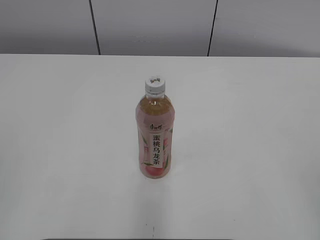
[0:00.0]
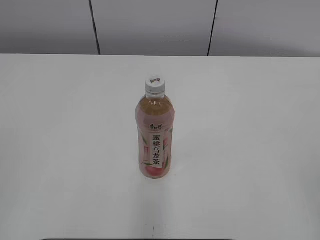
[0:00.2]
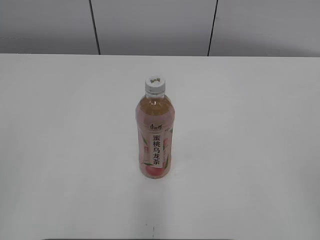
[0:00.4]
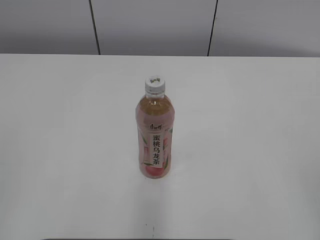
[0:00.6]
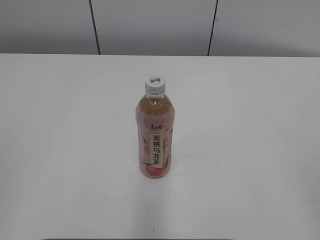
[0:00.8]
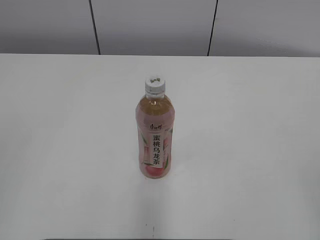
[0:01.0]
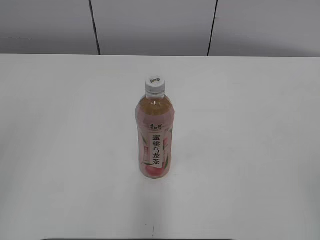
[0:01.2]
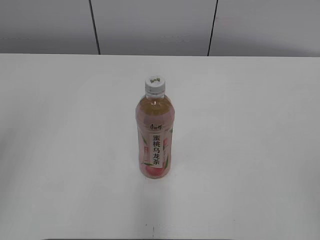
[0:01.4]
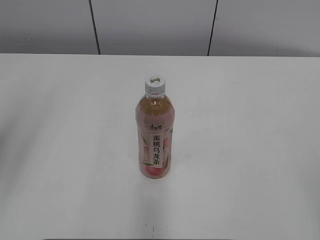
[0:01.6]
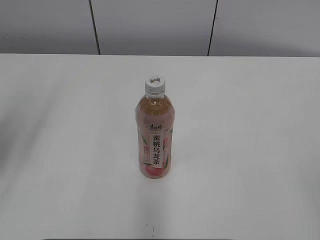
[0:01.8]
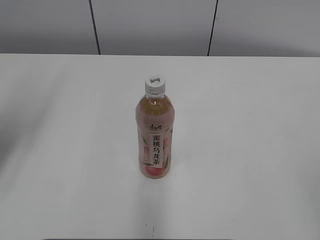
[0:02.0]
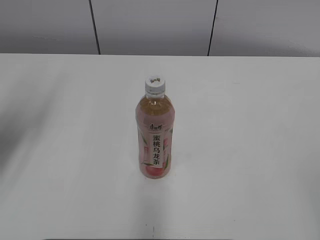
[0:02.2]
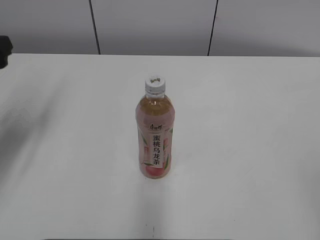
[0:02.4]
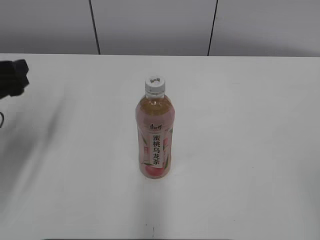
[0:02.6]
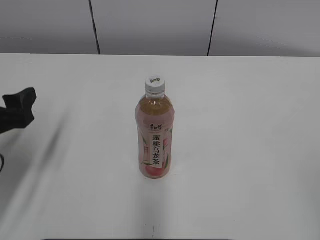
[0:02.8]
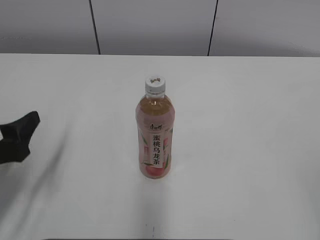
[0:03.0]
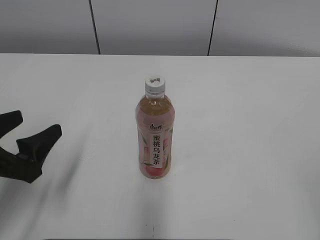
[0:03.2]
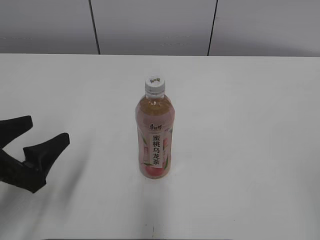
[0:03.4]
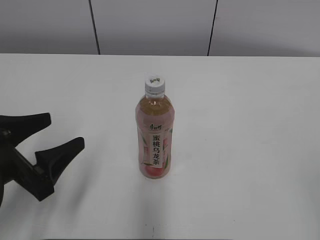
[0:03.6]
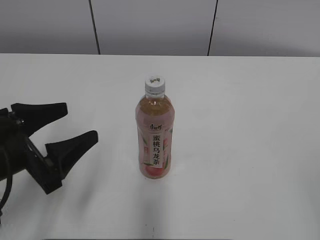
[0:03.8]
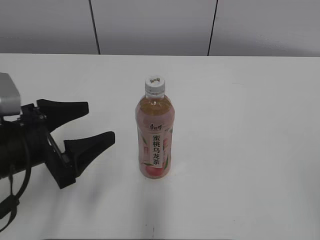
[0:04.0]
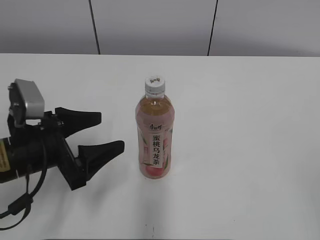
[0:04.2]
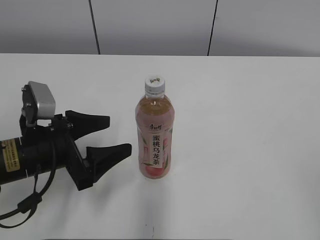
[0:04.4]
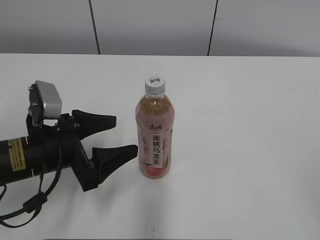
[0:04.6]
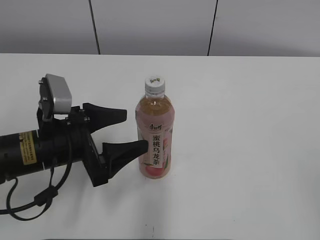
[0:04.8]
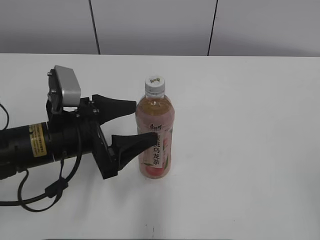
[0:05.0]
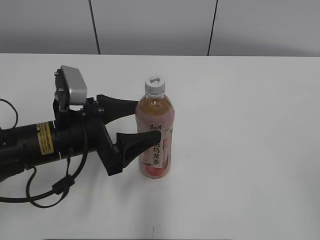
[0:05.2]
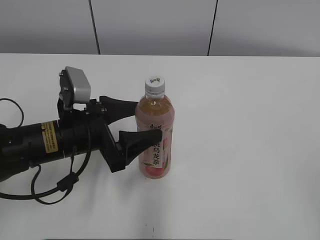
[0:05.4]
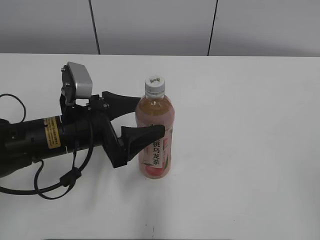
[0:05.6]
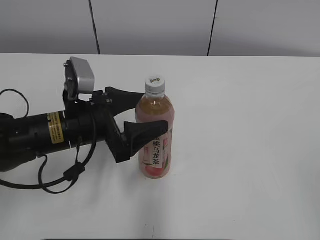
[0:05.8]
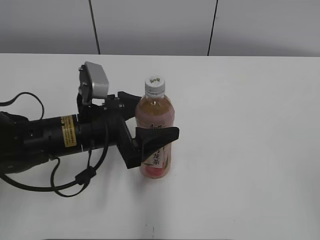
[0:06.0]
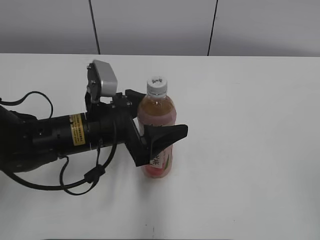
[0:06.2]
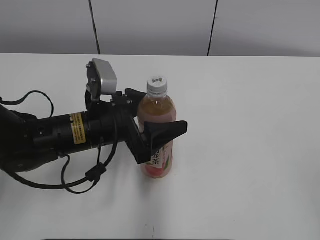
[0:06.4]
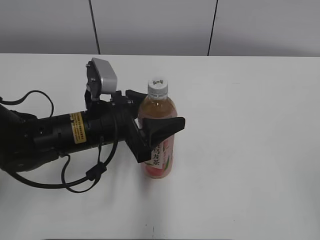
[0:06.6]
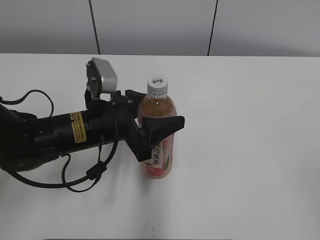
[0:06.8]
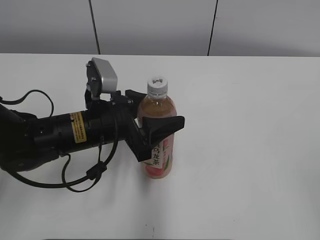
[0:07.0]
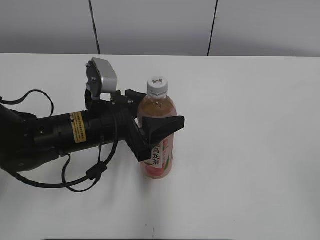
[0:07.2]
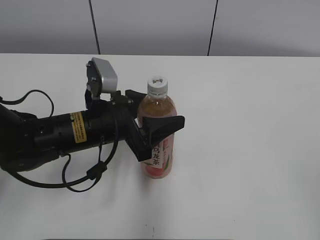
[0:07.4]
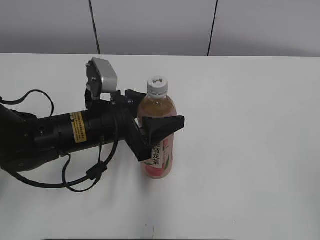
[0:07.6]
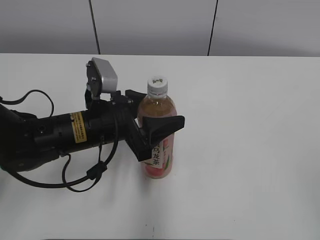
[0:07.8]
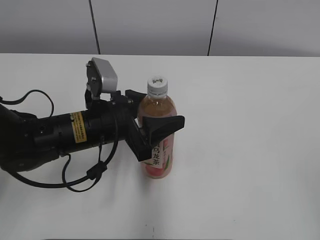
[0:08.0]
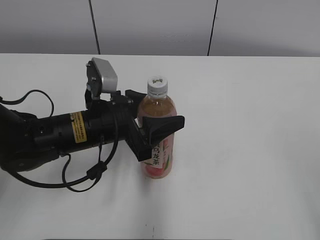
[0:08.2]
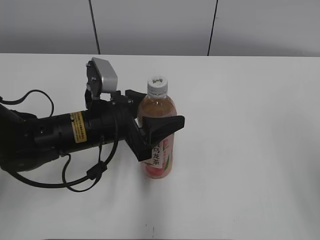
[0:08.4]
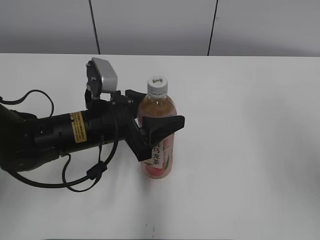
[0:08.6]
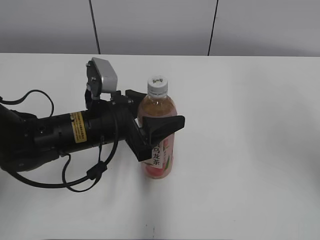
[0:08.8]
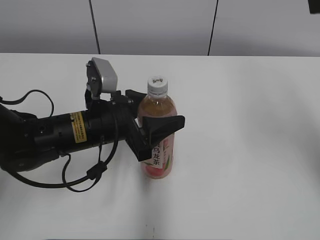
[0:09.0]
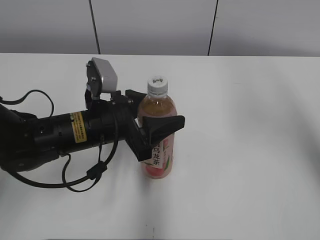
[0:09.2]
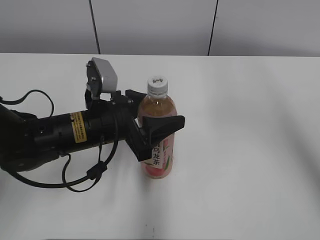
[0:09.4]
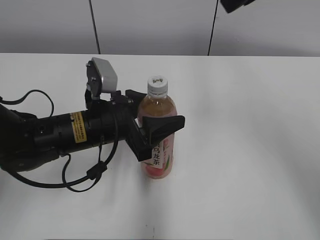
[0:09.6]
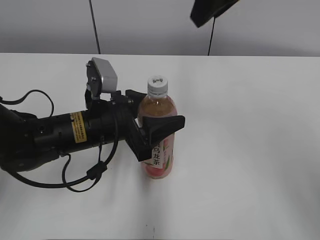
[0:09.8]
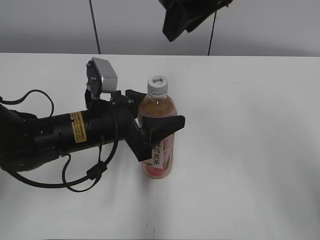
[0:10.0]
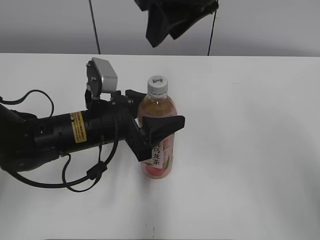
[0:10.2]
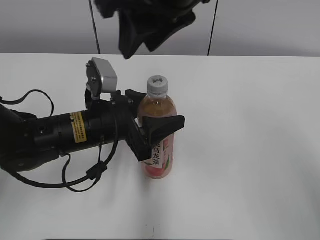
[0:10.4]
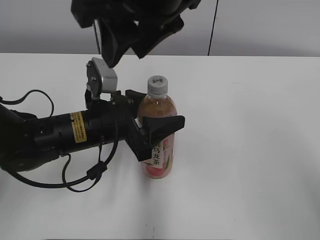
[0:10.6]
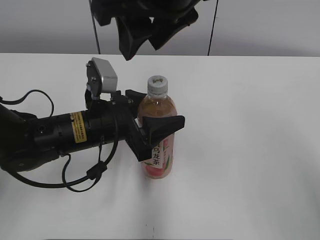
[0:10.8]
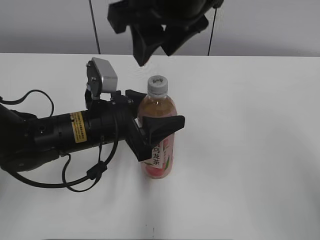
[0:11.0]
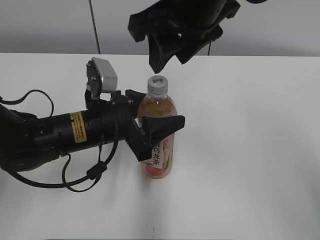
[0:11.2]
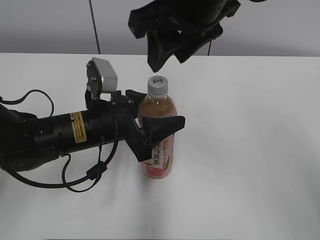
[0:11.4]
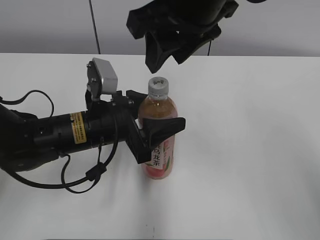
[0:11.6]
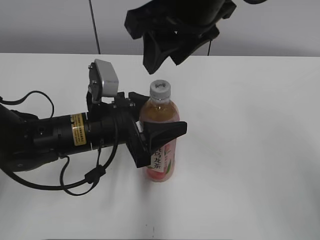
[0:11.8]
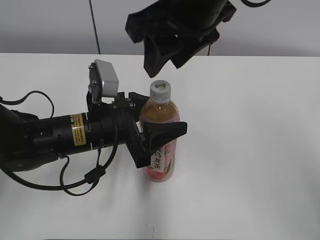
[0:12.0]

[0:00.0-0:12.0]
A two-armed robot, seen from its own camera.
Step, 0:00.0 to 0:06.4: Grab the Peach Oolong Tea with the left hand.
0:01.6 to 0:03.0: The left gripper is displaced downward by about 20 cm, and opens.
0:03.0 to 0:04.4: The left gripper moves to the right, approximately 10 cm.
0:04.4 to 0:06.0: The left gripper shifts roughly 5 cm to the right.
0:06.0 to 0:07.6: The left gripper closes.
0:07.6 to 0:09.0: The right gripper travels forward and upward by about 30 cm, and closes up.
0:09.0 to 0:10.4: The right gripper moves to the left, some 25 cm.
0:10.4 to 0:12.0: The grippers move only a little.

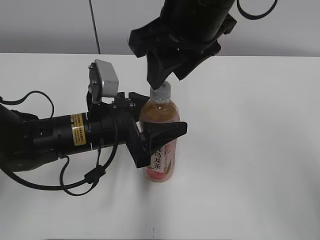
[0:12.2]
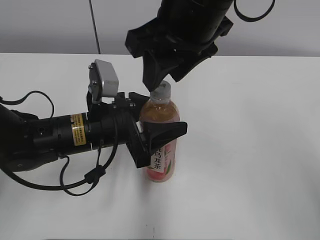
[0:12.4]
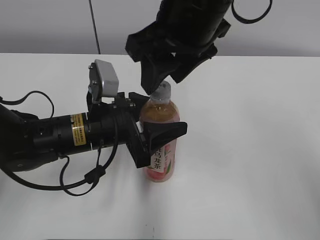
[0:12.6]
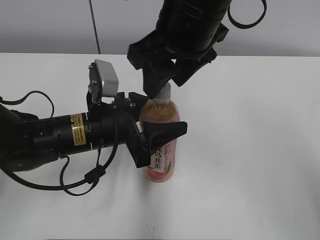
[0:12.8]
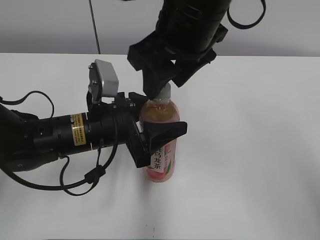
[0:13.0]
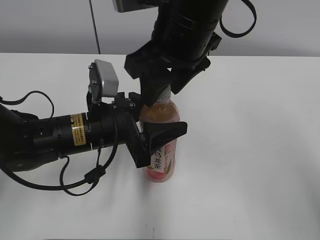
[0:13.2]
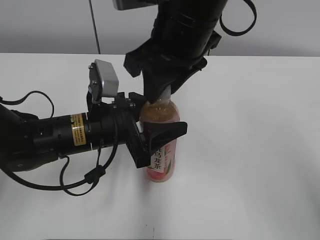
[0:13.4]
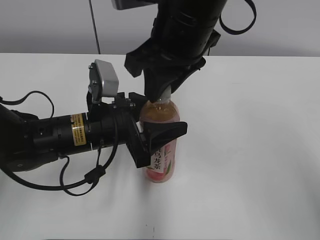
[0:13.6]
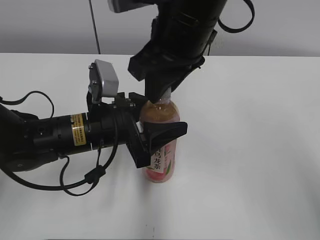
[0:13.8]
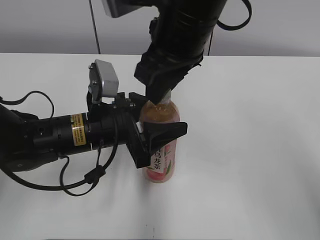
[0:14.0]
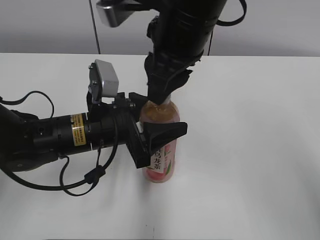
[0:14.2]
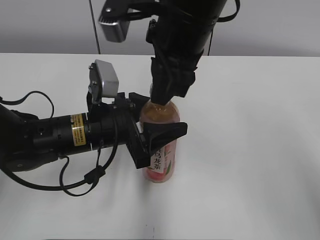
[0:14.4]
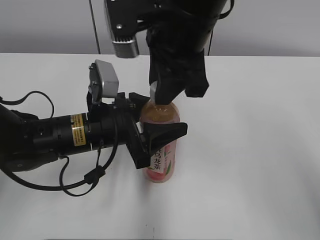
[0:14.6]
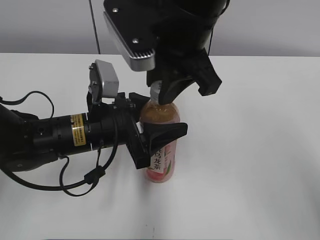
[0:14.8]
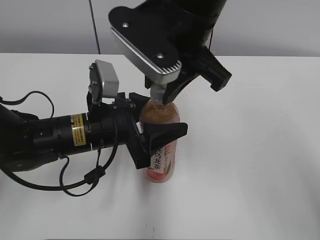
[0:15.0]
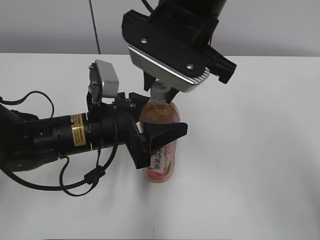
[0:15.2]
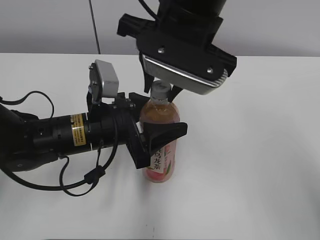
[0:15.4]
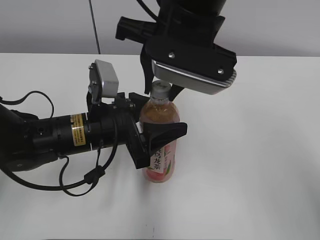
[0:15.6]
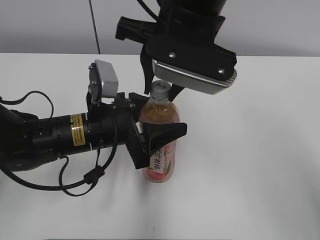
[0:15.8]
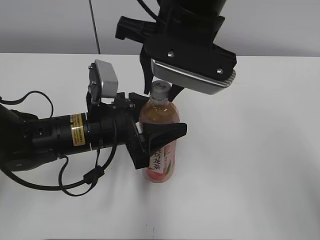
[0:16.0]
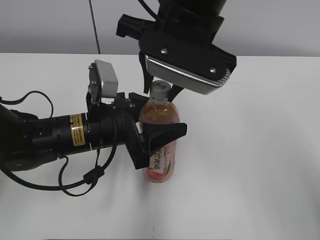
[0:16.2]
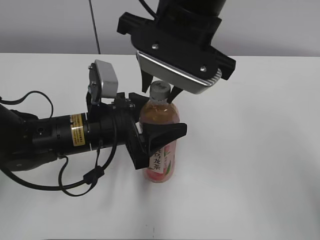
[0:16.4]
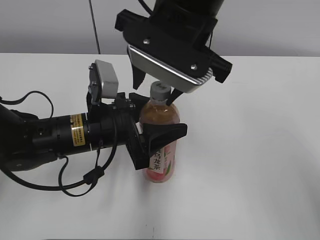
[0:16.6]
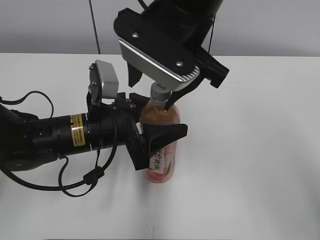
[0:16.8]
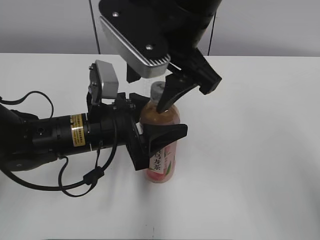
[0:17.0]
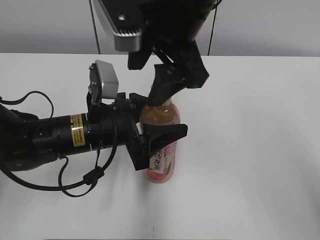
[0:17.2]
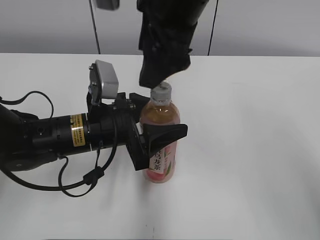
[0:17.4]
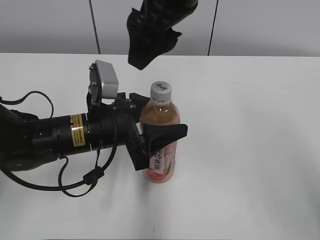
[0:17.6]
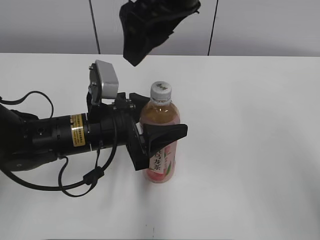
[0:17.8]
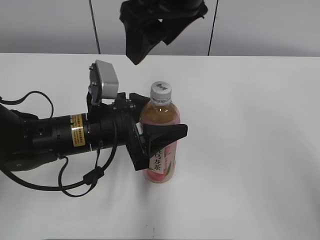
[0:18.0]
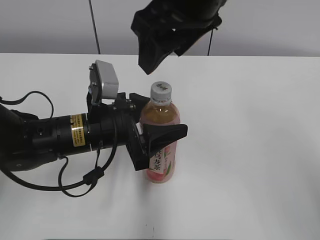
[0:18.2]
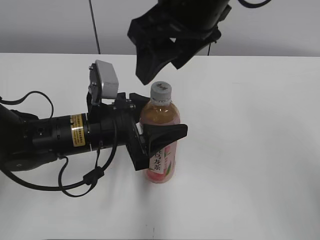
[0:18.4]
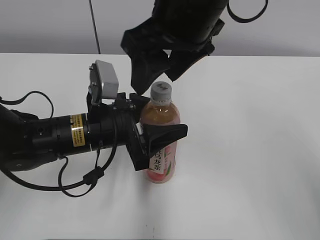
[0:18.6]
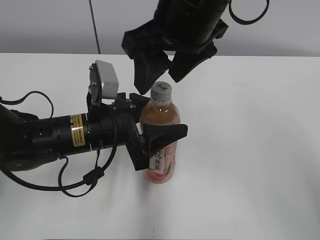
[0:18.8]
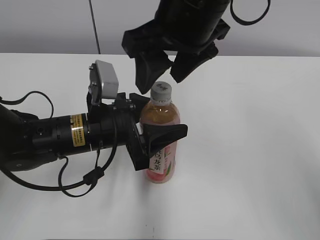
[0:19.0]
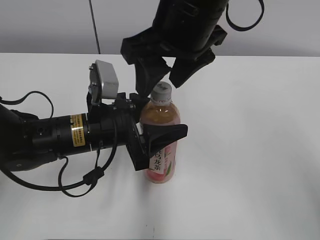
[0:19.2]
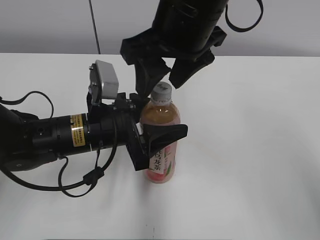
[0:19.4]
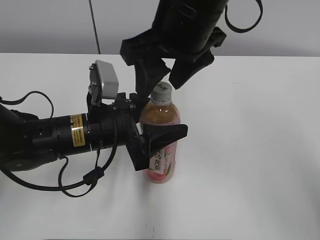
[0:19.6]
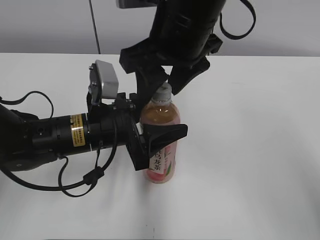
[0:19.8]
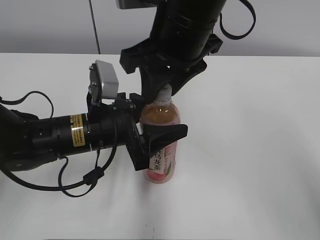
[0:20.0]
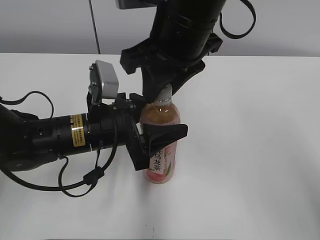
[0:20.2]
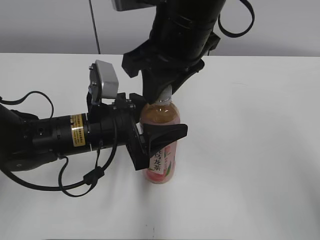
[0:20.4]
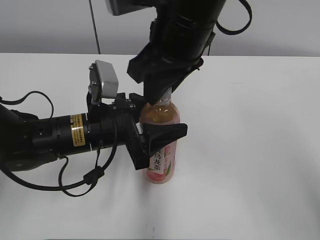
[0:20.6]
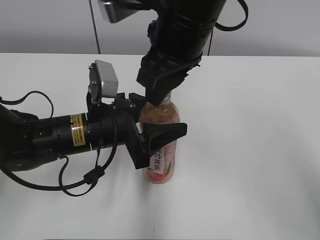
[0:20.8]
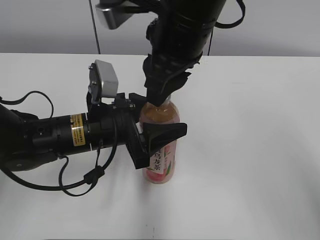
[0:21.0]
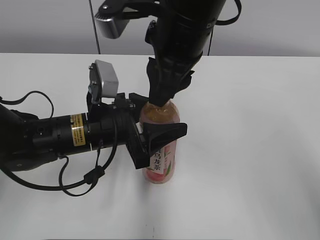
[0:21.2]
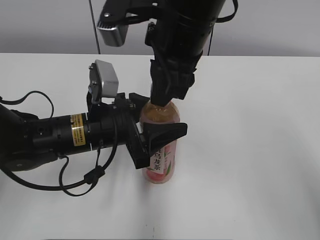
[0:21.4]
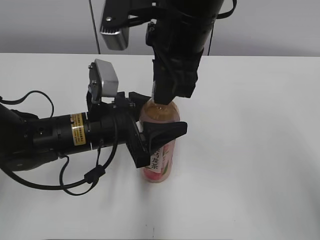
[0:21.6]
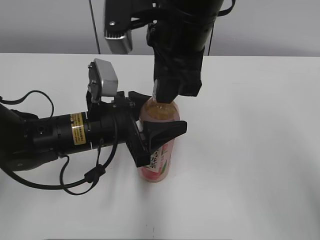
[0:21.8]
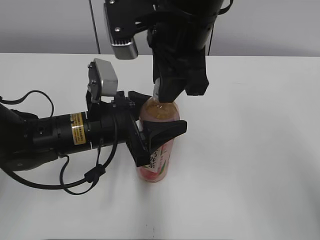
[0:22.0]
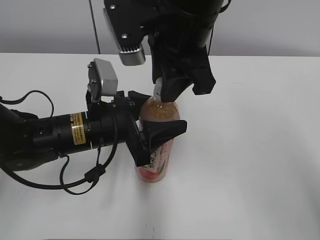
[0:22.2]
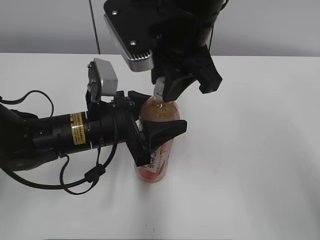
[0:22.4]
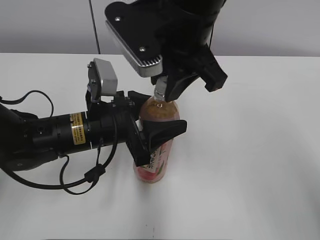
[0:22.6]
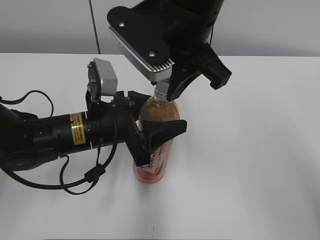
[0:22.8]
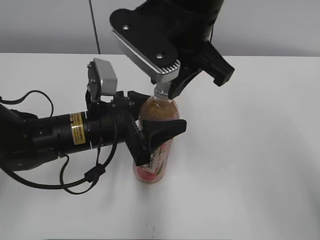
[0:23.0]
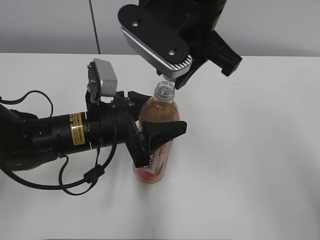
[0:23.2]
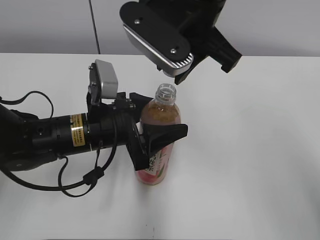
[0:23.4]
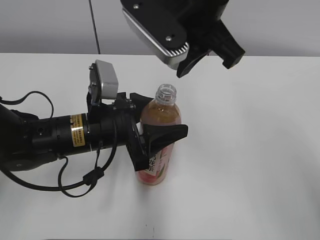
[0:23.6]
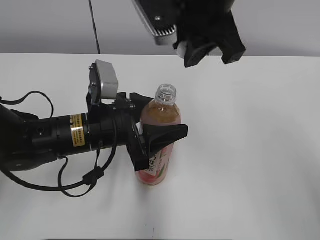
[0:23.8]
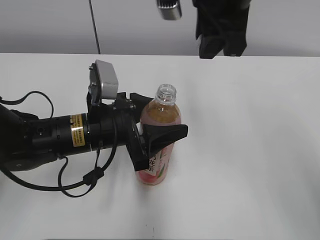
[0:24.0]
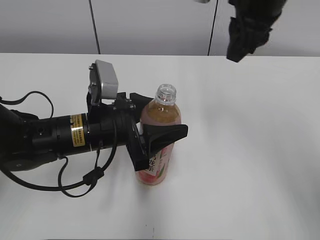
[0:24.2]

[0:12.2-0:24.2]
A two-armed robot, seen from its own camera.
0:12.2 to 0:13.8: The right gripper closes.
0:15.2 to 0:16.6: The right gripper opens its fingers.
0:18.2 to 0:19.8: The grippers stay close to where they were, moving slightly.
0:19.8 to 0:21.2: The right gripper closes its fingers.
0:22.6 to 0:24.2: The right gripper goes some 10 cm to the right and forward.
